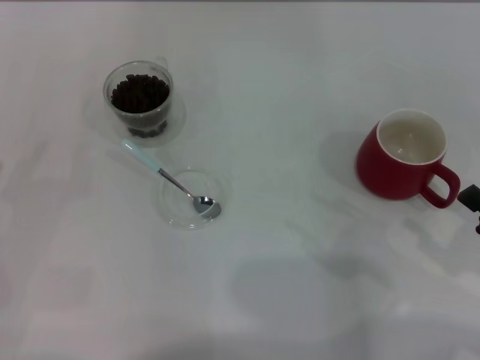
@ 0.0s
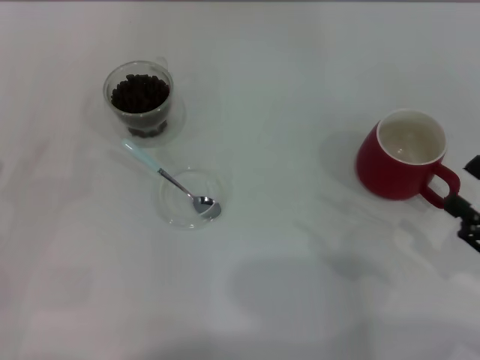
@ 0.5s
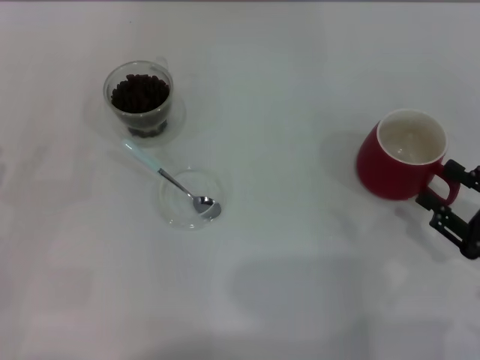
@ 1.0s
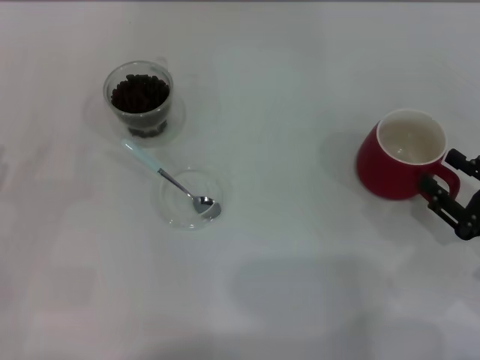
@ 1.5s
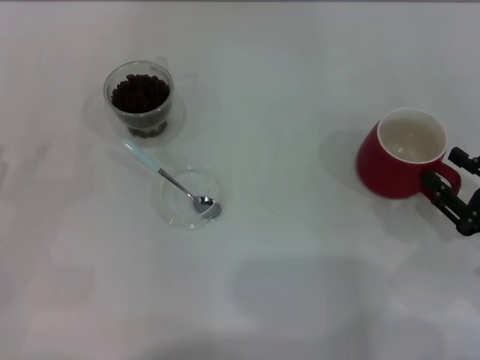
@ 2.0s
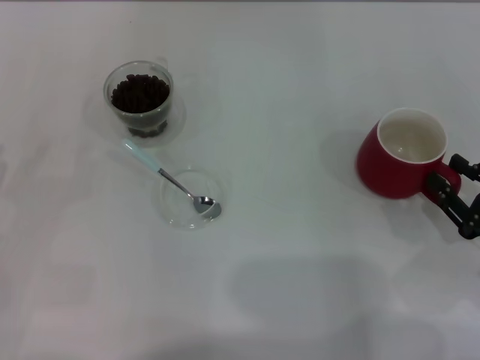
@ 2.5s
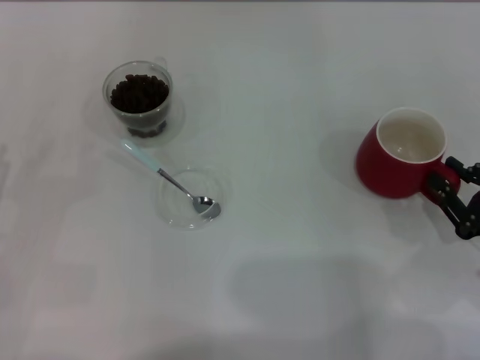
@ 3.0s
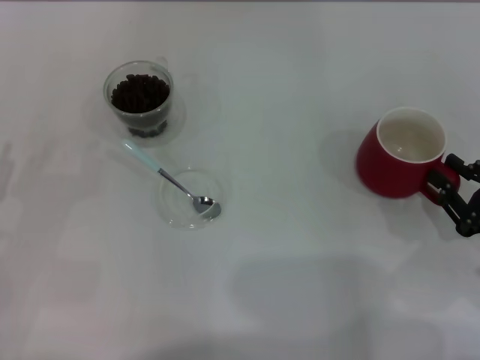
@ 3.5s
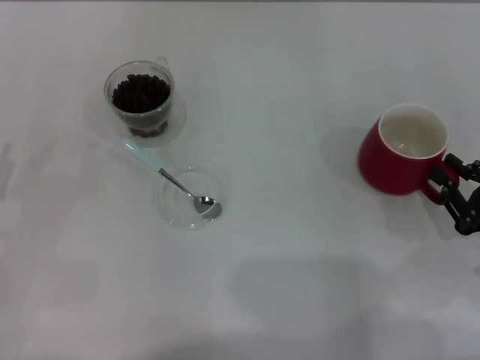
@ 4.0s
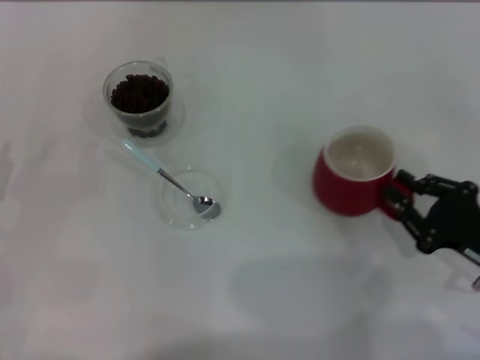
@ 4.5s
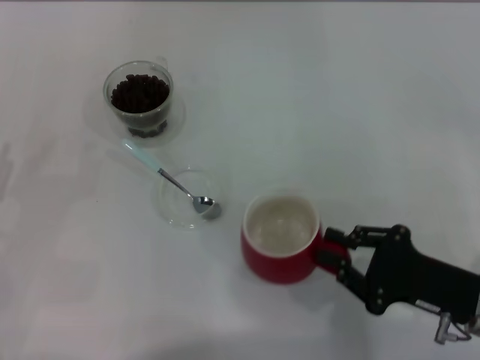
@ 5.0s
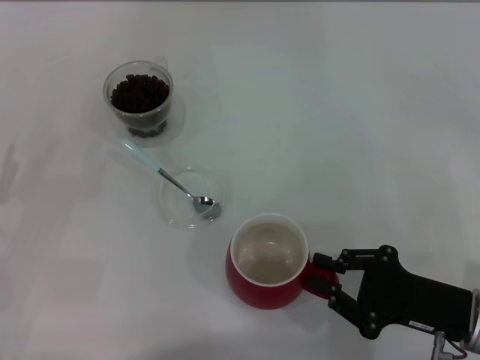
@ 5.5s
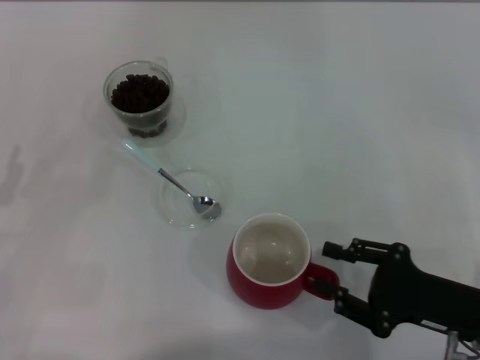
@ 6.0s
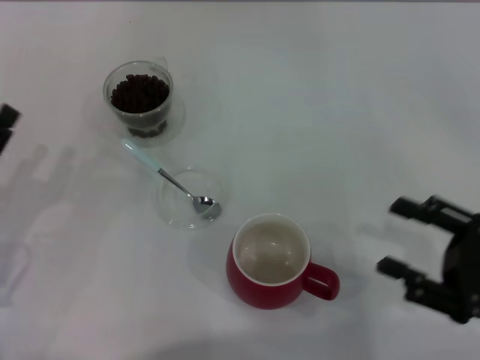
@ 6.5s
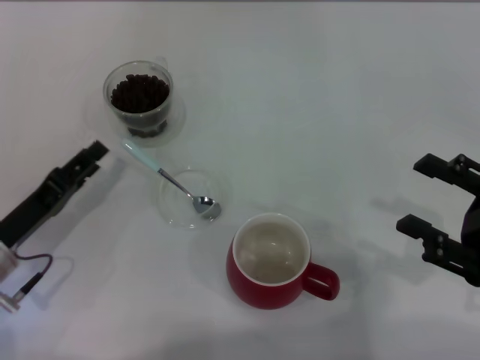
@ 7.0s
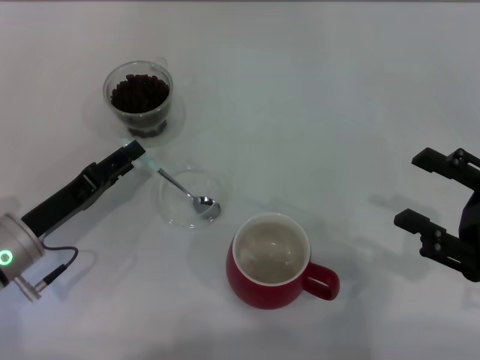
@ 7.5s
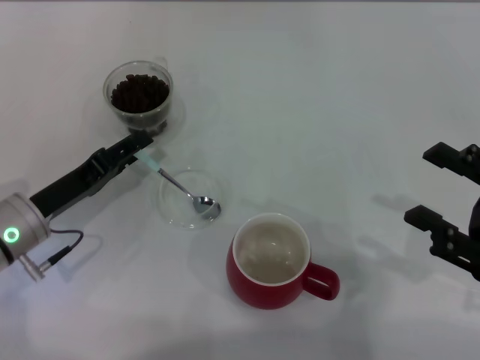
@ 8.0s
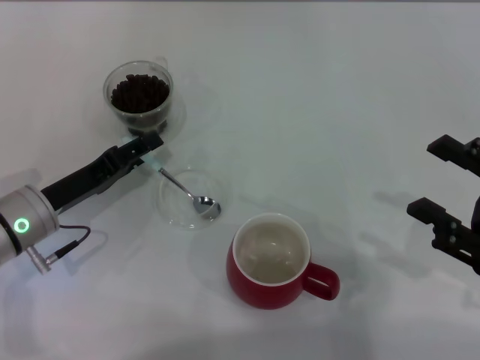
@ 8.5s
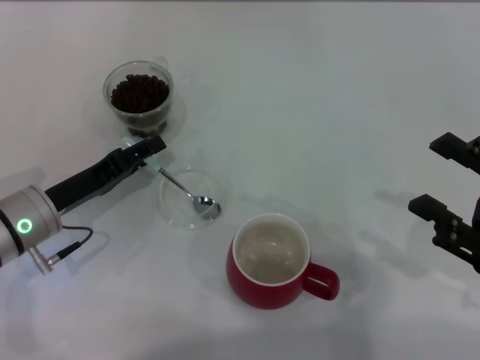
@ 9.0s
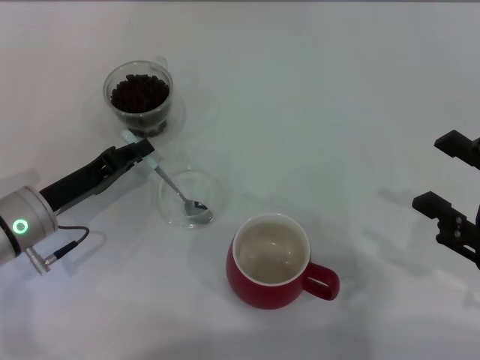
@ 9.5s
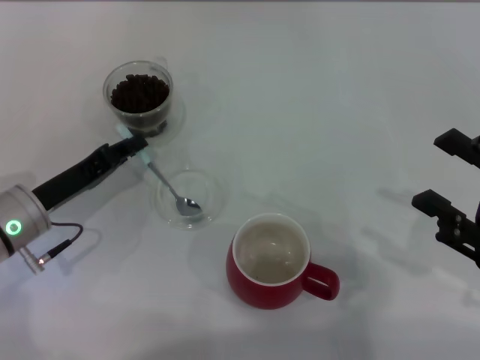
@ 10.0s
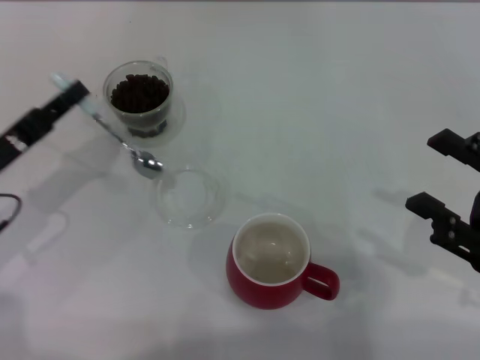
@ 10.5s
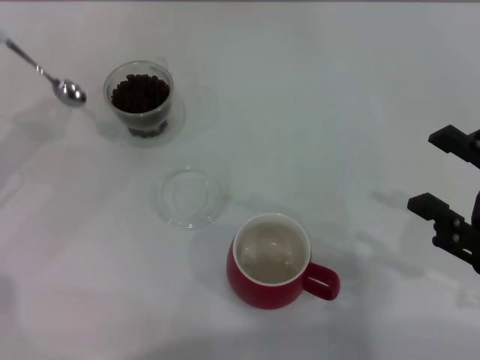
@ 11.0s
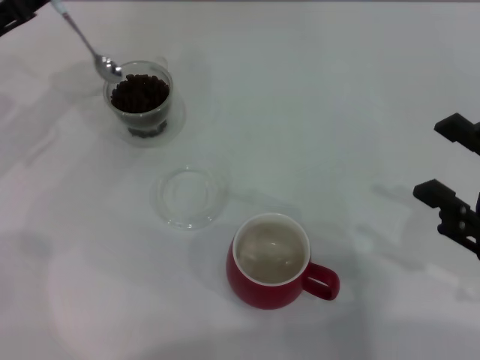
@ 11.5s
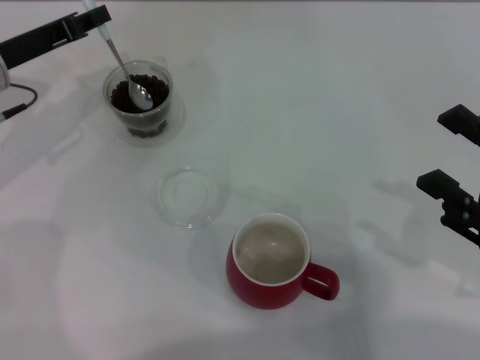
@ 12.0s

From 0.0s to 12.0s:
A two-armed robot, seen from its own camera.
Task of the whole recording: Use a blue spoon to take out the coffee beans from the glass and pour them into the red cup.
Step, from 6.5s to 10.0s: Pick up the spoon with the right gripper.
From 0.0s to 2.0s: The right gripper travels downward by some 5 cm.
From 2.0s to 4.0s: The right gripper closes up.
From 4.0s to 6.0s: The right gripper shifts roughly 10 cm to the left.
From 6.0s to 8.0s: The right gripper is displaced upward by about 5 cm, and opens; the left gripper moves to the right and forward, about 10 cm.
From 8.0s to 10.0s: The left gripper closes.
From 10.0s to 12.0s: The left gripper travels forward and upward by roughly 15 cm.

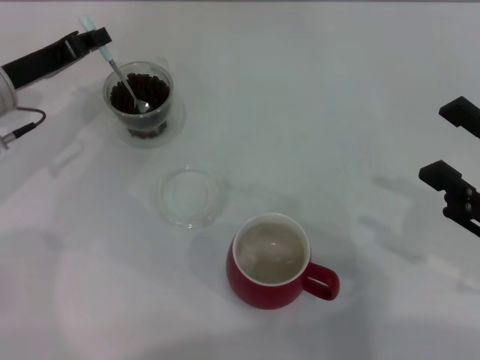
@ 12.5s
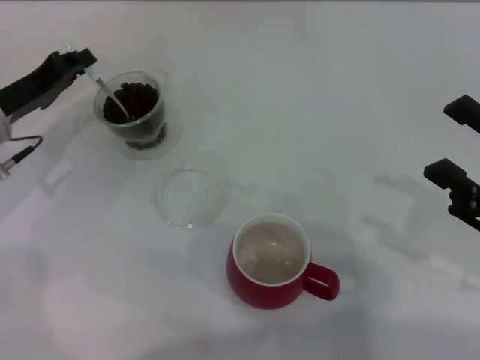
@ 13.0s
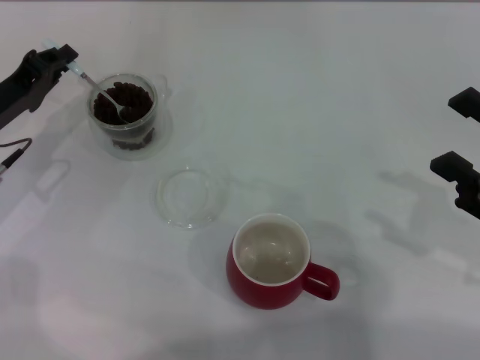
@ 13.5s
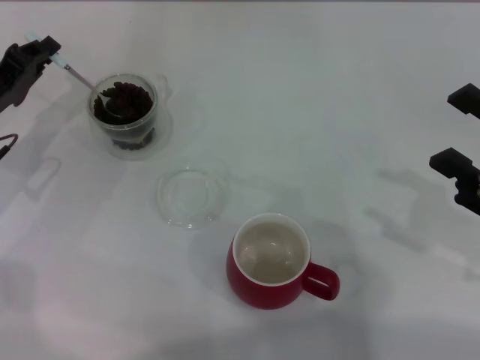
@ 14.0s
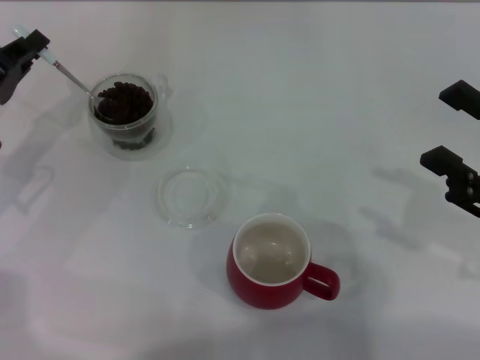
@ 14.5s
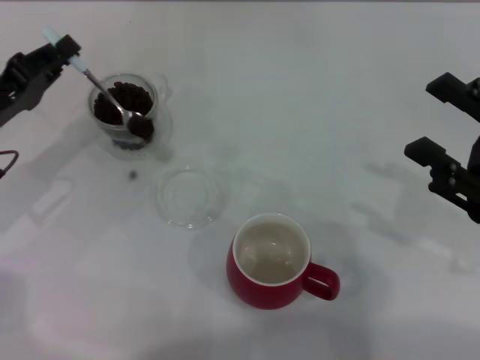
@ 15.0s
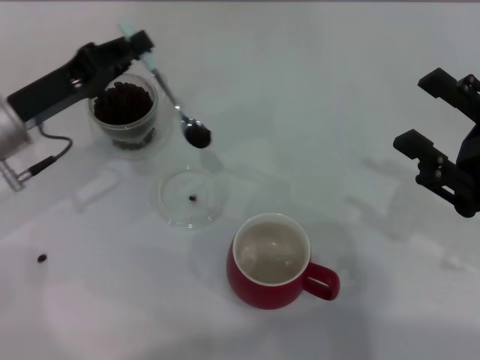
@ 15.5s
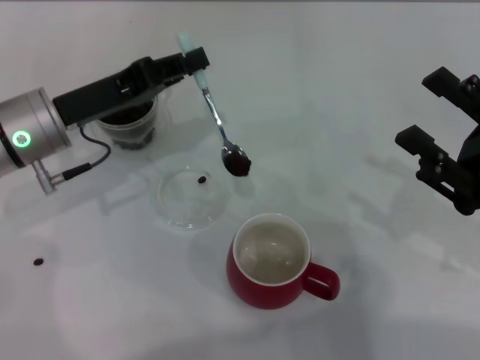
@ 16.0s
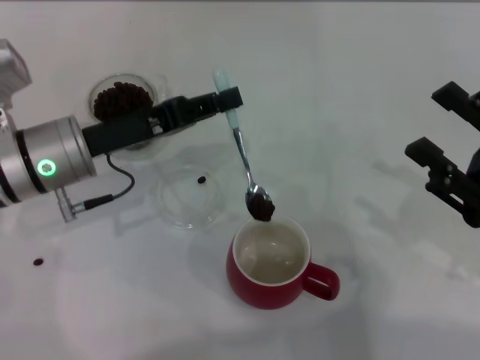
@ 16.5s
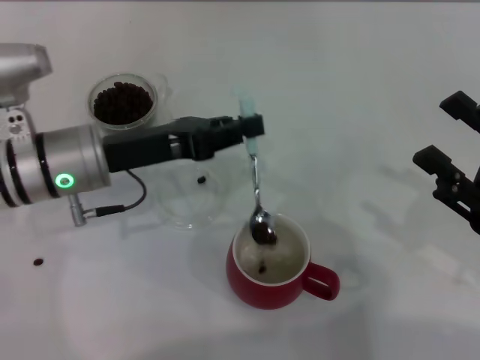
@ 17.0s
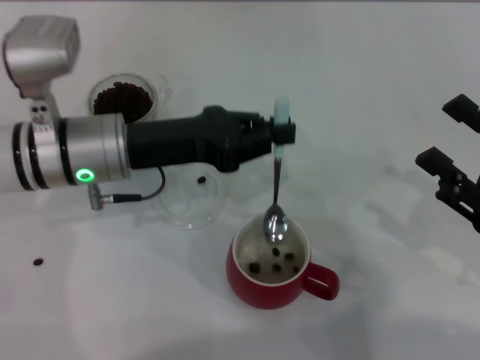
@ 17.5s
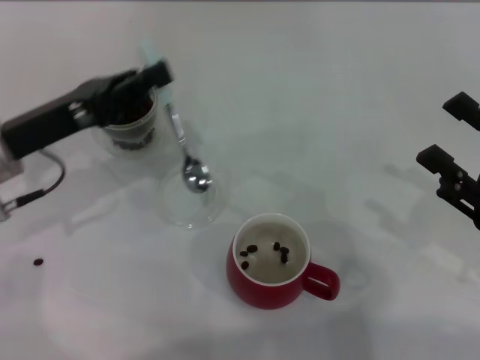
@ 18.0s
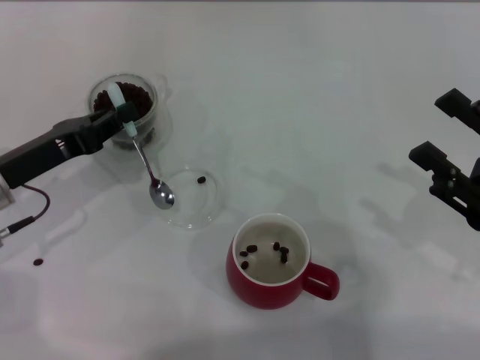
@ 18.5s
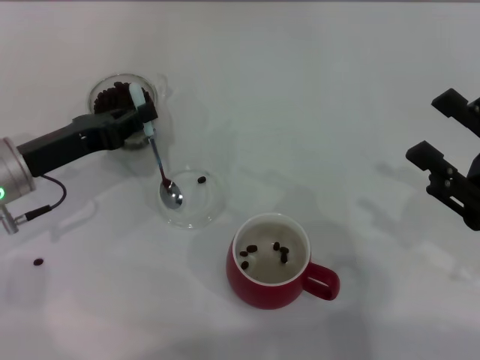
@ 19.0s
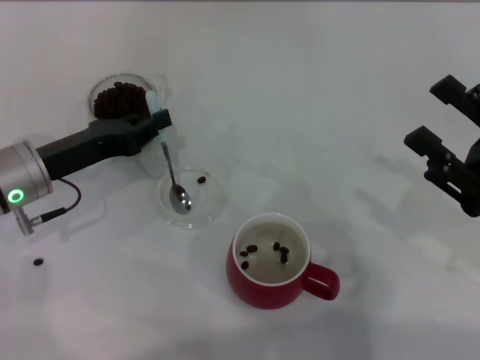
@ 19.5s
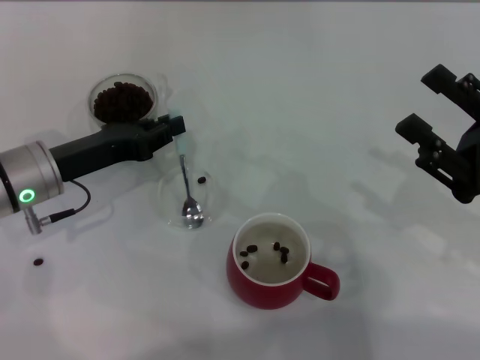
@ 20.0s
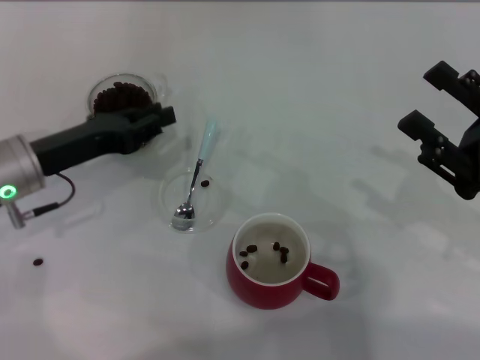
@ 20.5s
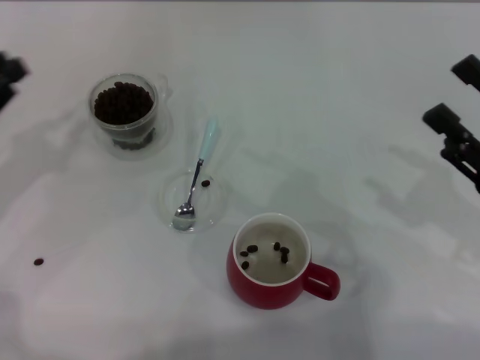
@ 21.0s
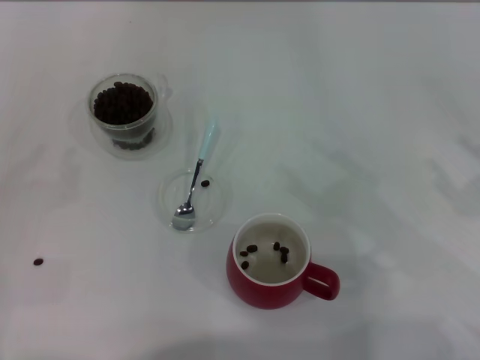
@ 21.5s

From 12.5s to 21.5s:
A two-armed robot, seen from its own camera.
Task of the whole recording: Use a blue spoon to take out the coffee beans from the glass and pour them into the red cup.
Step, from 12.5s to 17.0s: Scoop a spoonful of beans into the cup with the right gripper.
From 12.5s to 14.5s: The left gripper is displaced backward by approximately 5 cm.
From 14.5s to 17.0s: The left gripper goes roughly 15 cm to the right.
From 17.0s to 19.5s: The left gripper moves to the left, some 5 cm.
From 19.5s to 21.5s: The left gripper is displaced to the left and backward by roughly 20 cm, and opens.
